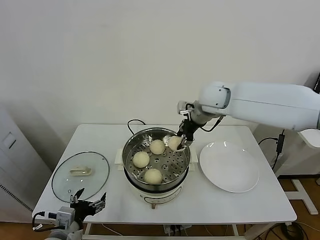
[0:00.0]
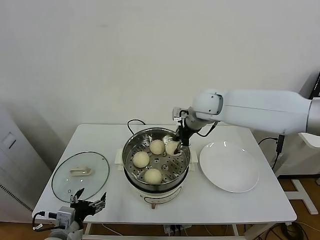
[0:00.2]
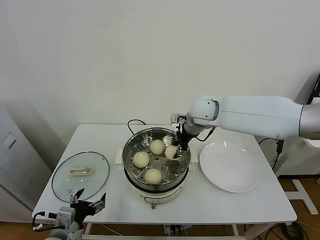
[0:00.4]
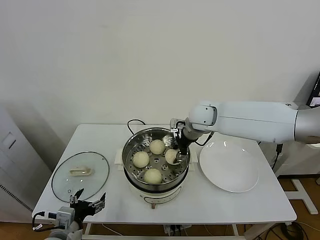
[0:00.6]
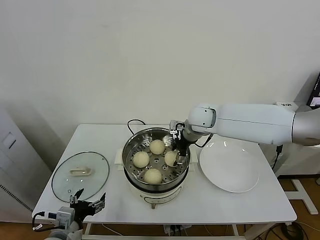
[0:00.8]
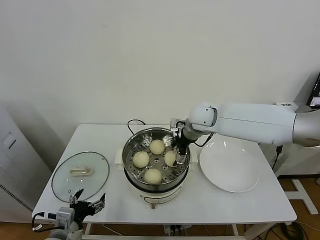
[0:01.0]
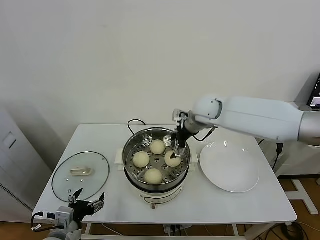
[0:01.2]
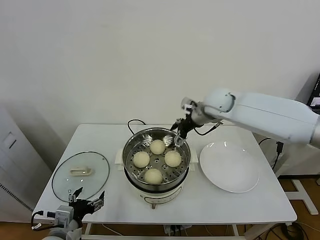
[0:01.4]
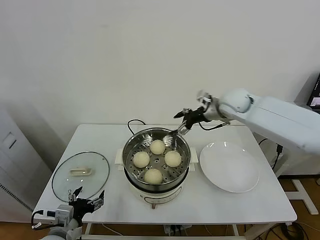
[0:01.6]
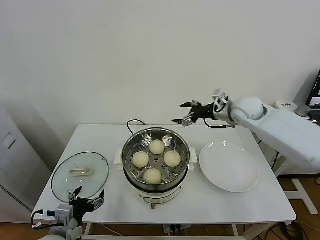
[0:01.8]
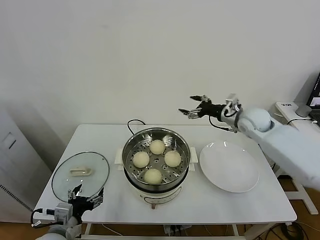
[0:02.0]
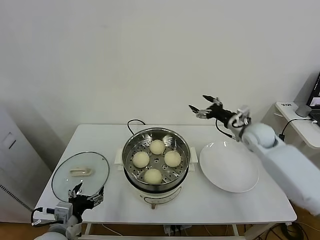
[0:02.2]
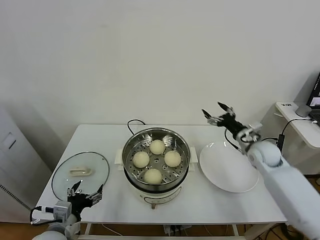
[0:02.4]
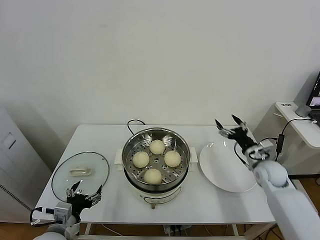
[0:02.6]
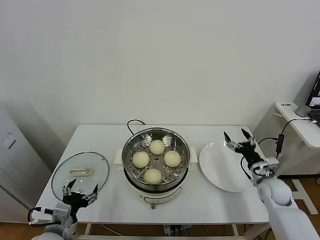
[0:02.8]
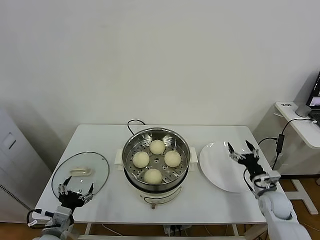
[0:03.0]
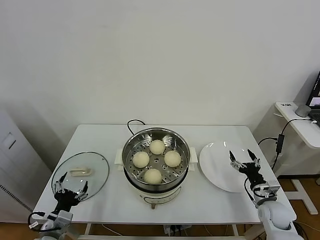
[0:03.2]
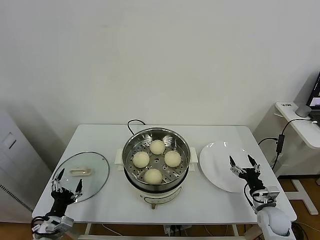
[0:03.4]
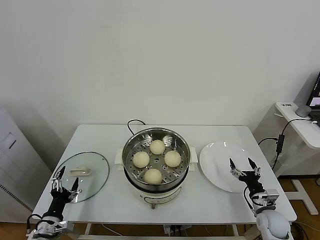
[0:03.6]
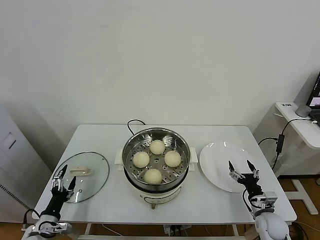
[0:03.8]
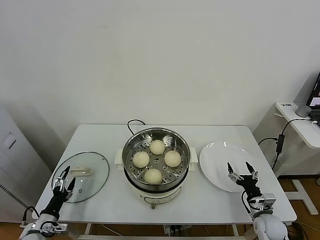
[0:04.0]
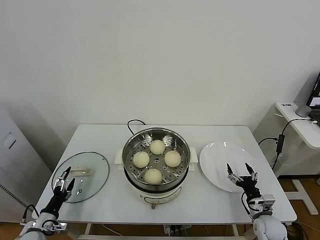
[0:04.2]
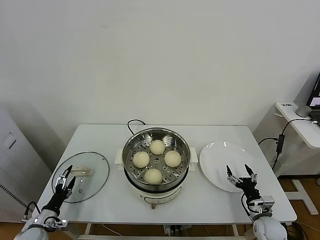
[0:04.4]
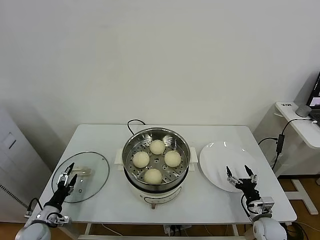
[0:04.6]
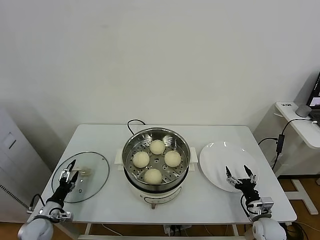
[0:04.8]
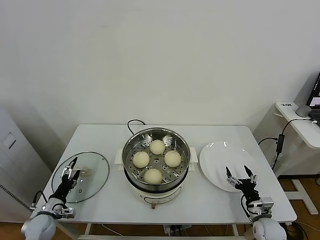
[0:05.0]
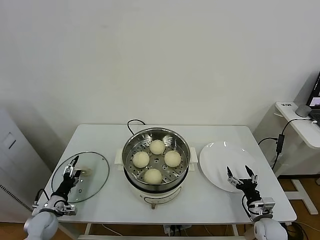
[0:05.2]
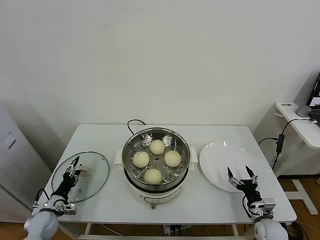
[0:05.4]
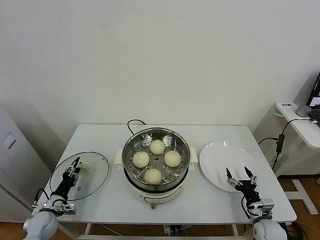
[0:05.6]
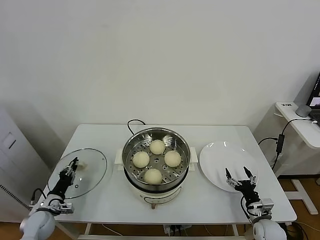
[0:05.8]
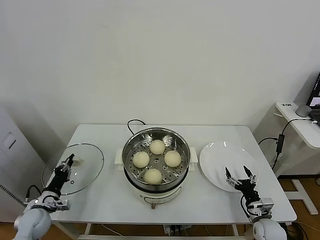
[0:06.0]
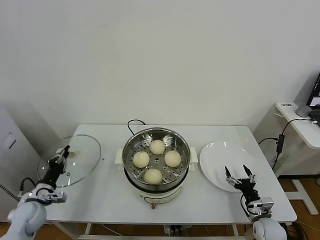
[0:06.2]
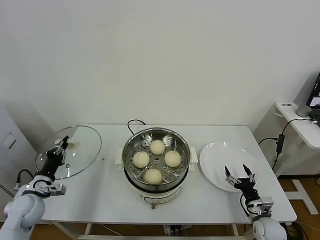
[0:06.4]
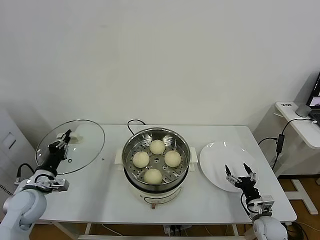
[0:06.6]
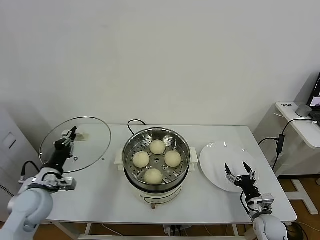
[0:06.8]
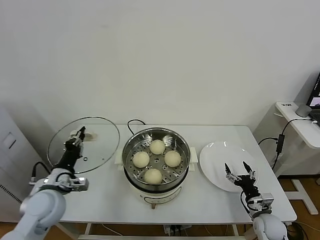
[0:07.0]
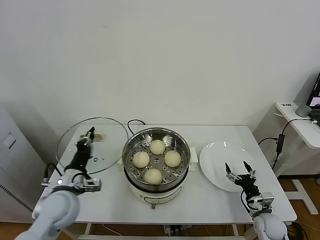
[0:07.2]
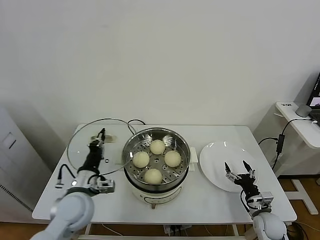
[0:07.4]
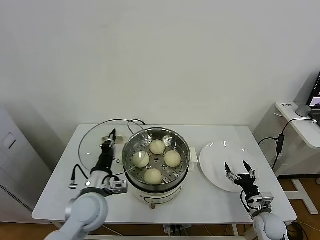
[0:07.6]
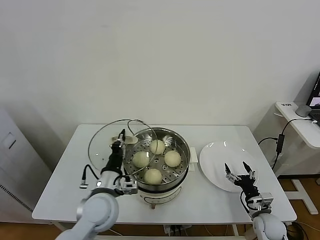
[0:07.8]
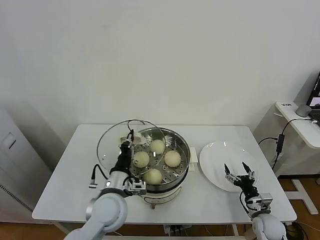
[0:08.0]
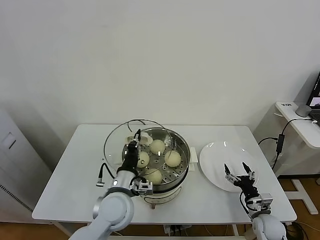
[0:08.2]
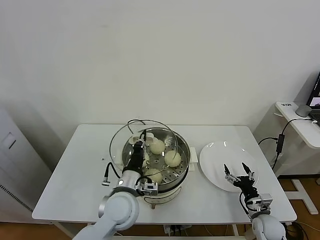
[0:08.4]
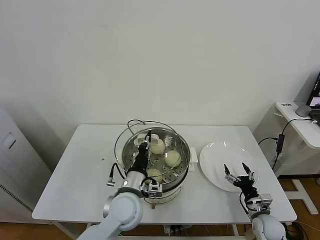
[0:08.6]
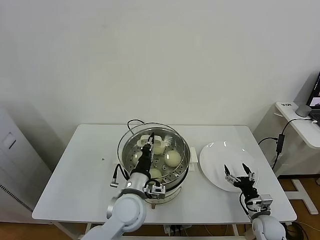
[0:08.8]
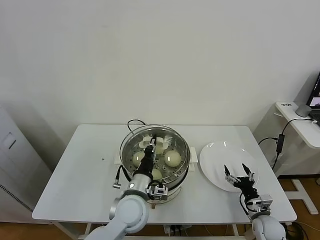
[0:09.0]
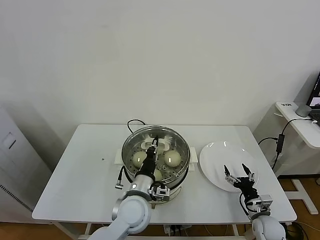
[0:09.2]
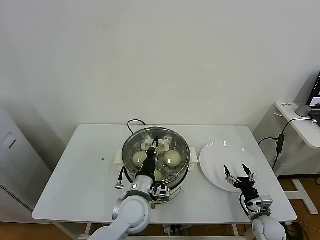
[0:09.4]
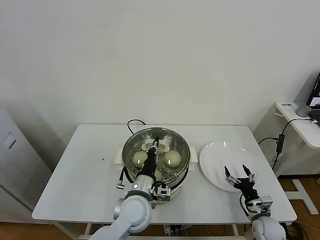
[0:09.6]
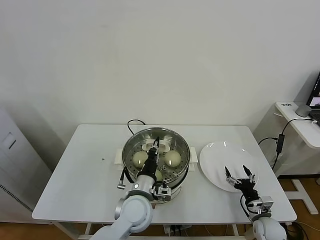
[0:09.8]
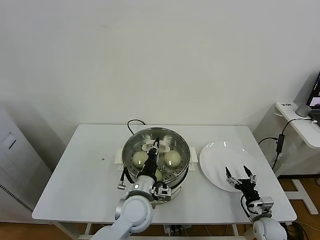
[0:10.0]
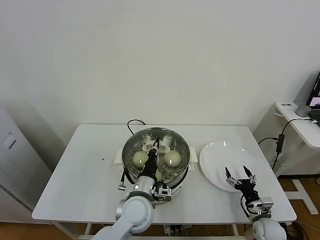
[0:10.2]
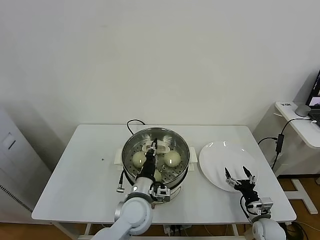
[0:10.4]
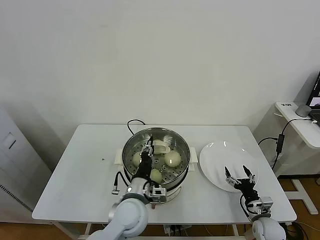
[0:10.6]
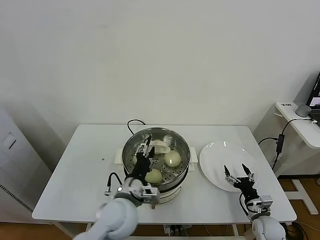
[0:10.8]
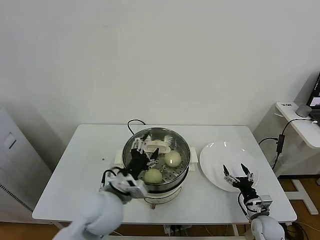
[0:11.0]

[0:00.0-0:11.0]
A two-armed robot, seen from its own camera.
Task of the whole recording: take steamed baozi put them in steamer.
Step, 0:01.2 to 0:06.0: Grasp the pot lid with left gripper.
Step, 0:06.2 to 0:10.8: Place the pot lid on the steamer with left gripper.
0:00.0 to 0:01.6: The right gripper is displaced to the right by some 10 cm, and opens up.
0:01.6 to 0:03.2: The right gripper shifts roughly 40 cm downward, backward and to the right, while the left gripper changes place by roughly 5 cm.
0:03.2 to 0:04.8: The right gripper travels downward by approximately 5 cm; the left gripper goes approximately 20 cm to the left, downward and forward.
0:04.8 to 0:06.2: The left gripper goes about 10 cm upward, and closes its fingers.
0:06.2 to 0:07.8: The left gripper shifts about 30 cm to the right and upward.
0:07.8 to 0:09.4: The left gripper moves to the right, approximately 10 cm.
0:09.4 to 0:11.0: The left gripper heads upward and to the left, covering some 10 cm, and opens.

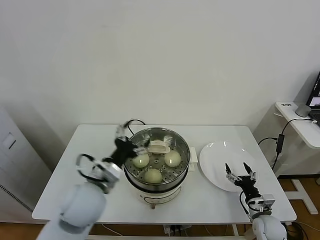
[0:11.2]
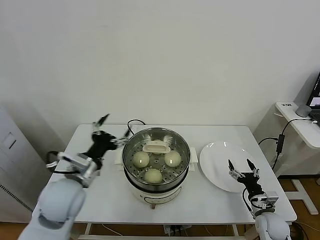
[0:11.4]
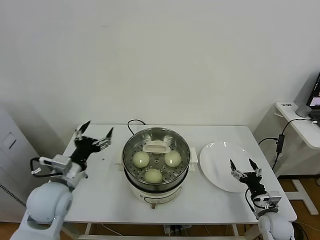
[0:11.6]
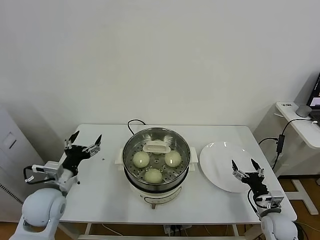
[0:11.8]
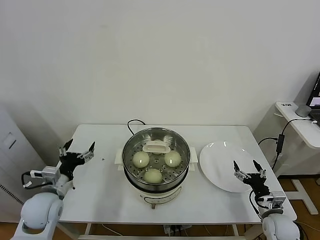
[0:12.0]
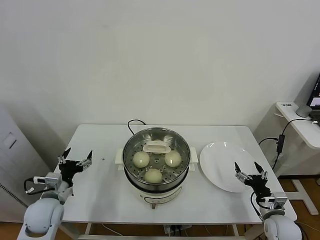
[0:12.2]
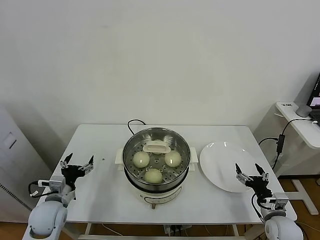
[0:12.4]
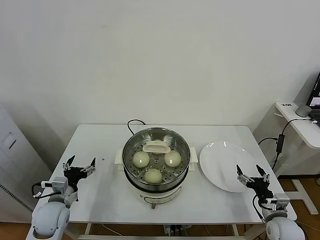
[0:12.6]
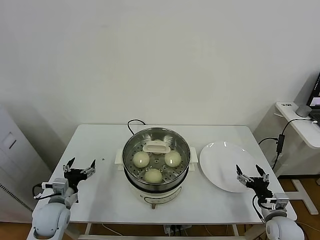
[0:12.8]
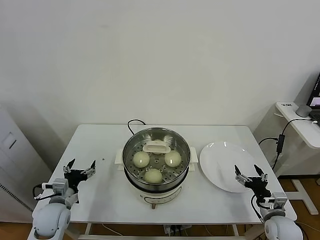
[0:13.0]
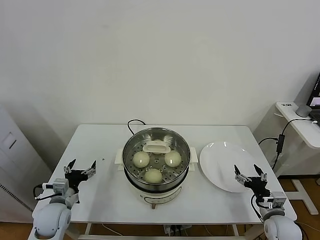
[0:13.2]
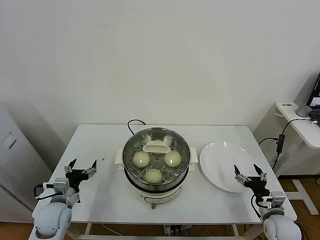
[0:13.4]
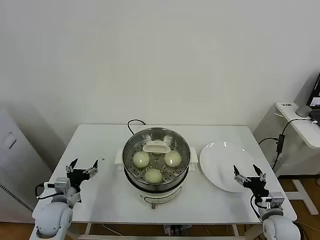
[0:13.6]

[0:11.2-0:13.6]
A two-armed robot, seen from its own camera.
Task of the whole recording: take steamed baozi put them in steamer.
0:11.2 to 0:12.4: The left gripper is displaced to the left and downward by about 20 cm; the right gripper moves upward, approximately 5 cm.
0:12.4 to 0:13.6: There are only small adjustments of the grippers.

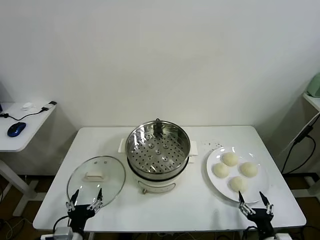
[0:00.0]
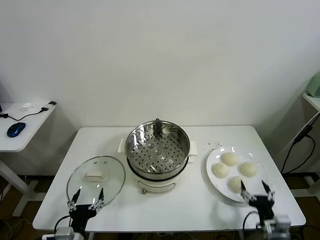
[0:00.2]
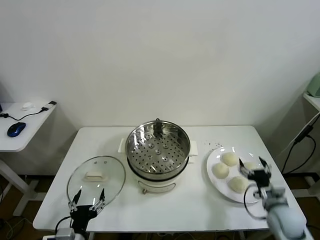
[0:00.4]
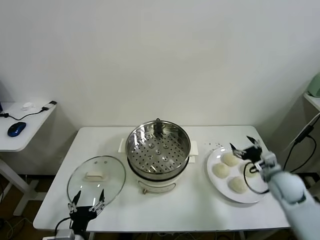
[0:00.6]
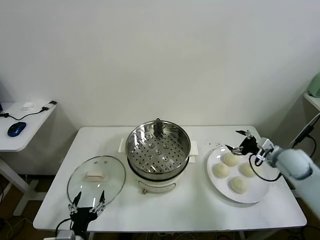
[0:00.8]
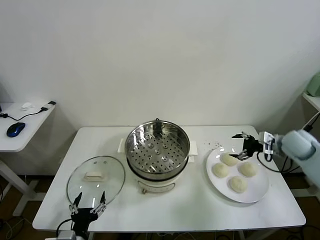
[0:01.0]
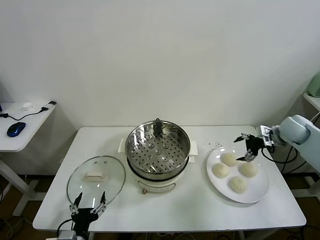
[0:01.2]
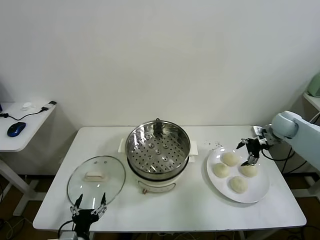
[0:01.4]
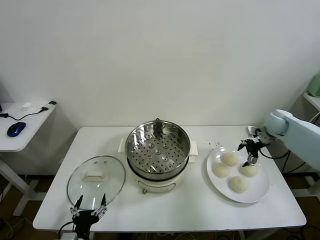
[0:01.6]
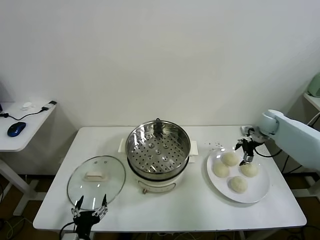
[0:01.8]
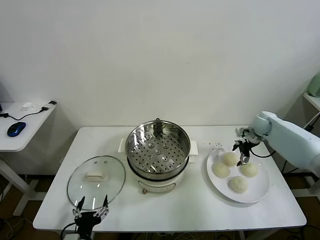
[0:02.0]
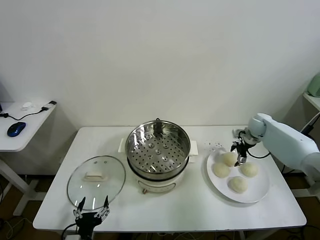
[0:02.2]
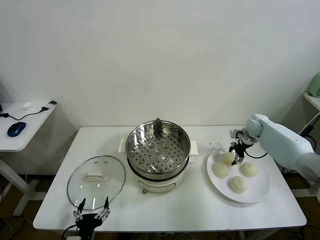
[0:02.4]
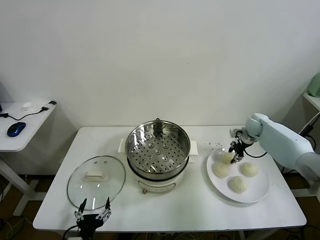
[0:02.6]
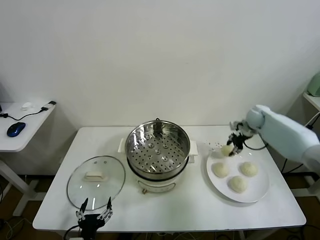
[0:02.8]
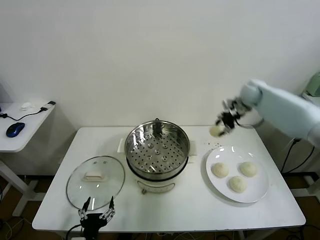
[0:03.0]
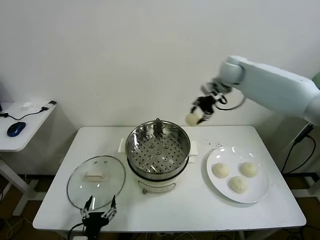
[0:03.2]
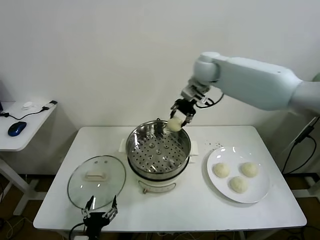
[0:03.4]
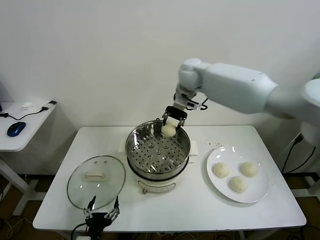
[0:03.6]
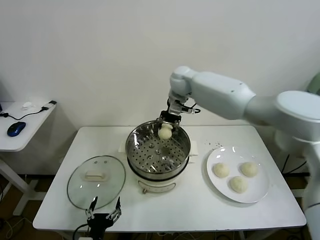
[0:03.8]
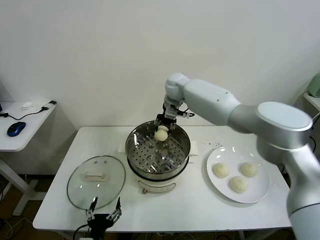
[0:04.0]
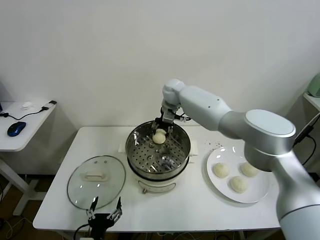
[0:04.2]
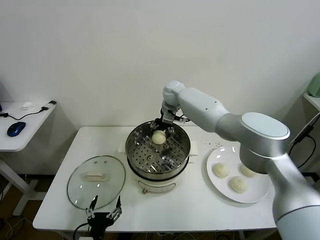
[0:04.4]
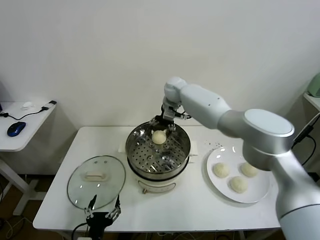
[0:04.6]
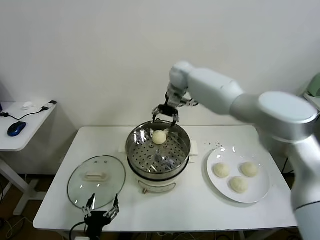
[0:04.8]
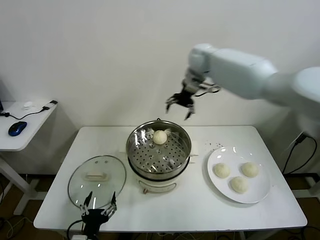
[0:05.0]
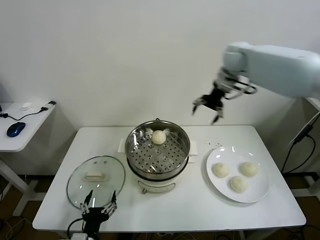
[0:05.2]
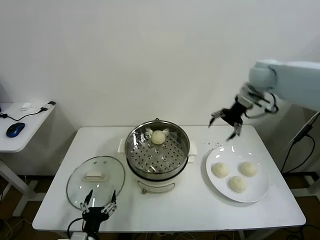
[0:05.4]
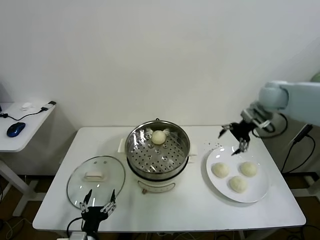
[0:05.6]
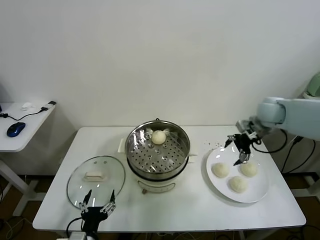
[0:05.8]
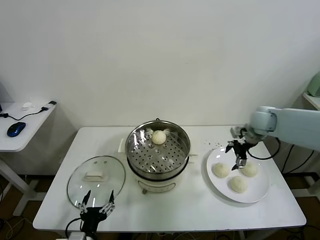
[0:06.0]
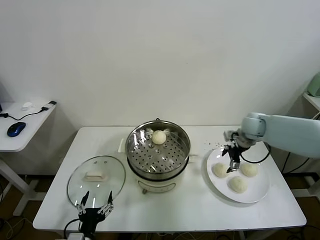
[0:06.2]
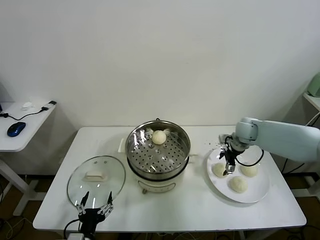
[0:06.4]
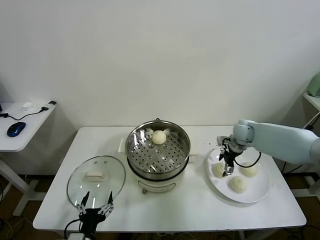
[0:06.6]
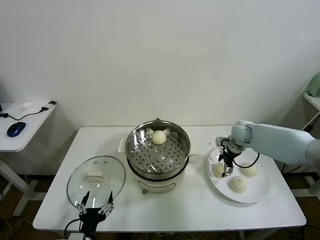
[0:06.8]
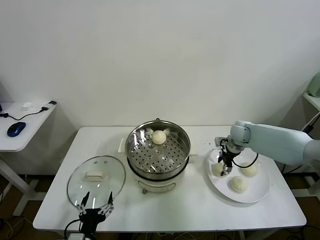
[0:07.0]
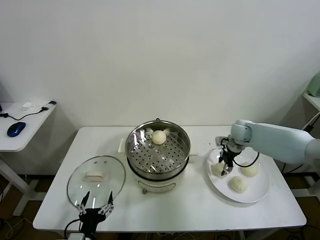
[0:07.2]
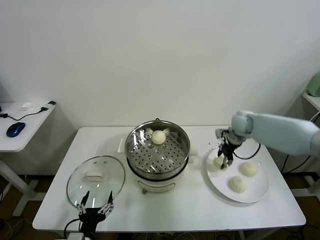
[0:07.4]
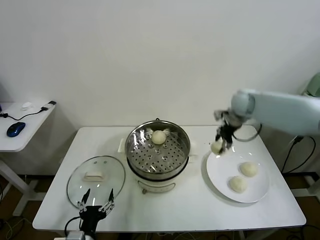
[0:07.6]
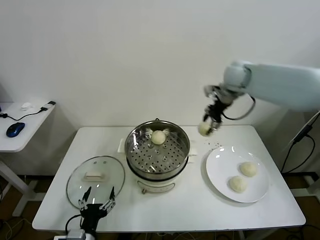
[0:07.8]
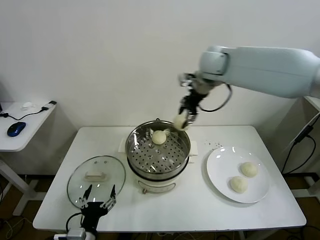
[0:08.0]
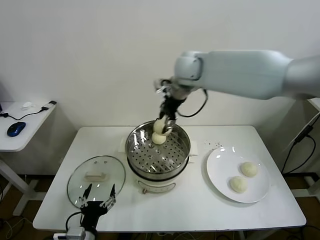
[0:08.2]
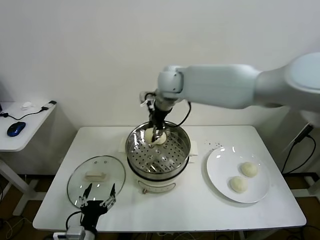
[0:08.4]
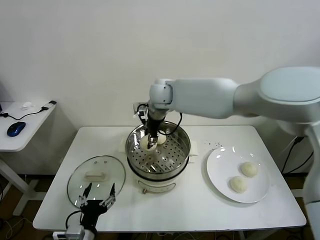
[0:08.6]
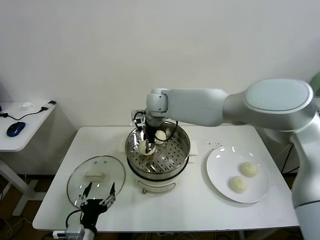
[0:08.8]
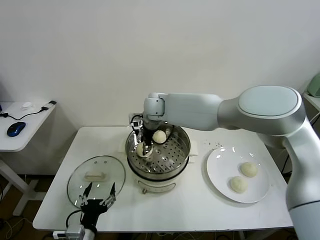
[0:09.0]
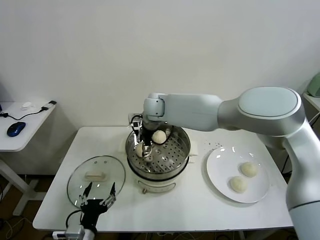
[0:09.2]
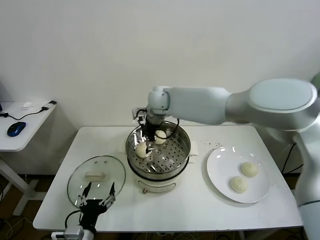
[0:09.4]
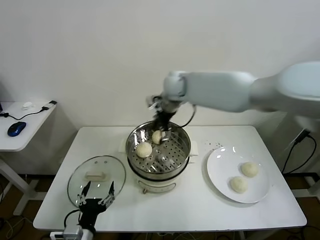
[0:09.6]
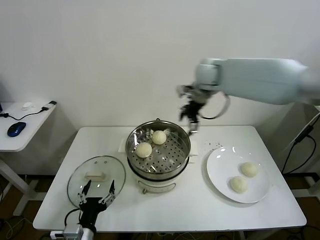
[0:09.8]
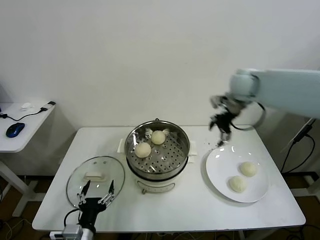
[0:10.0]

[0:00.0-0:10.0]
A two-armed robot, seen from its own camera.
Task of the whole recording: take steamed baozi put them in steamer.
Step, 0:00.0 to 0:02.6: Grasp the baozi in the plate with right gripper.
Step, 0:02.8 to 0:04.6: Place the baozi on the steamer with right gripper.
Step, 0:04.8 to 0:07.0: Grasp the baozi in the plate with right gripper.
Step, 0:07.2 to 0:09.2: Place the baozi on the steamer with right gripper.
0:01.4 to 0:02.8: The right gripper goes some 10 cm forward and to the left, travels downward and back again, roughly 5 cm each way, and closes up.
0:02.8 to 0:04.2: The right gripper moves to the left, about 30 cm.
0:04.2 to 0:05.8: The right gripper is displaced to the right and backward by about 35 cm, and opens its fingers.
0:05.8 to 0:07.2: The right gripper goes roughly 10 cm downward, and closes its fingers.
0:07.2 to 0:08.6: The right gripper travels to the left and upward by about 35 cm.
0:08.6 to 0:10.0: The right gripper shifts some 30 cm to the right, and opens up.
